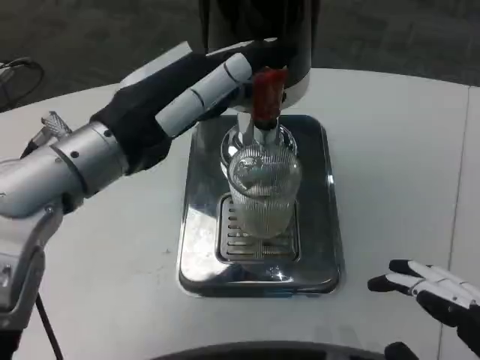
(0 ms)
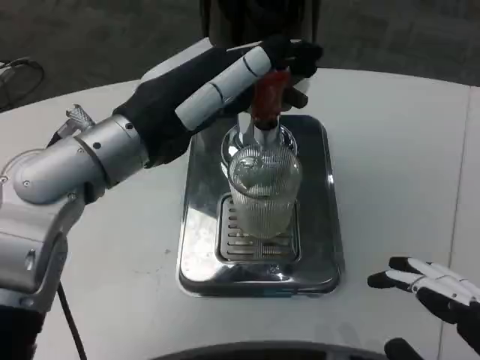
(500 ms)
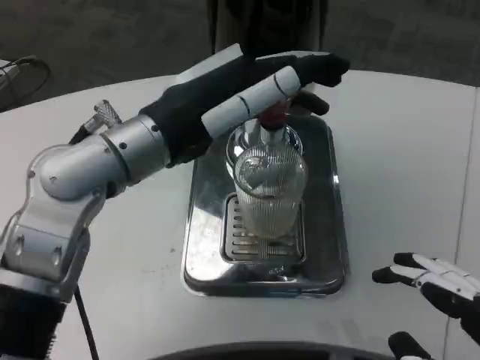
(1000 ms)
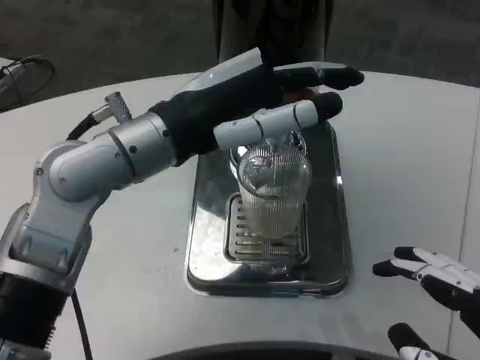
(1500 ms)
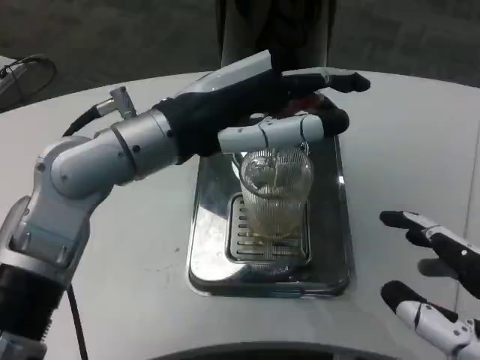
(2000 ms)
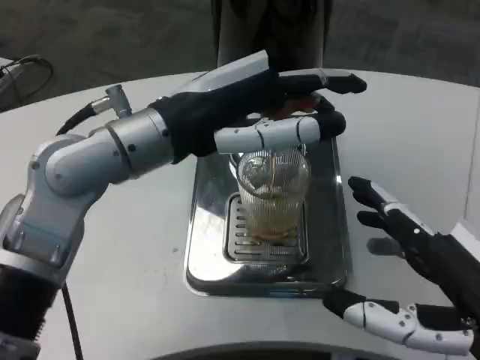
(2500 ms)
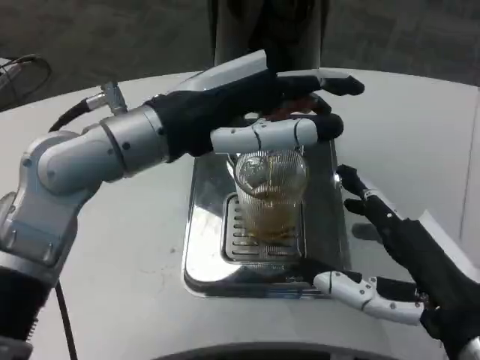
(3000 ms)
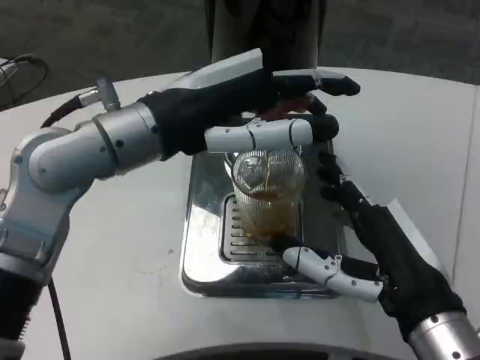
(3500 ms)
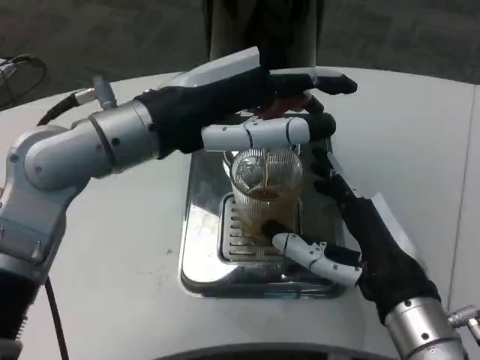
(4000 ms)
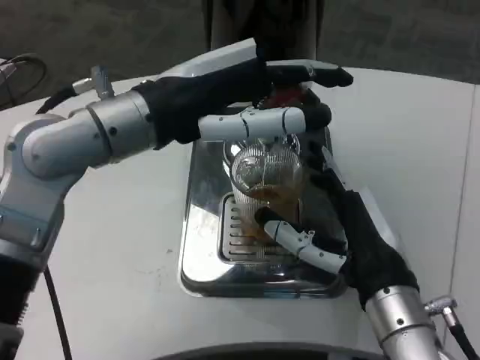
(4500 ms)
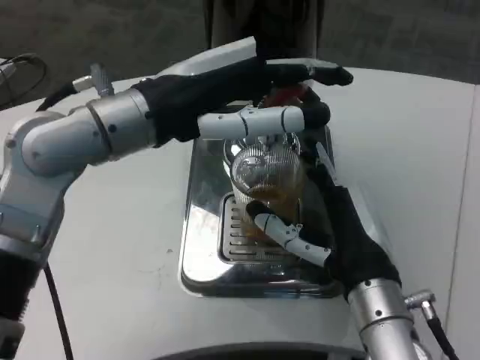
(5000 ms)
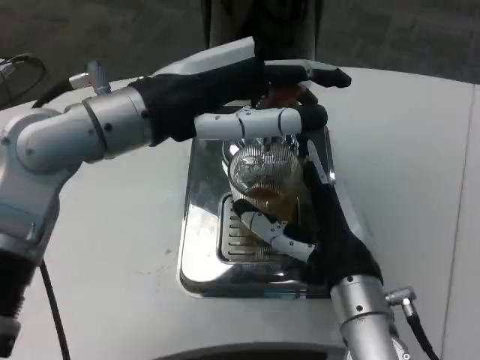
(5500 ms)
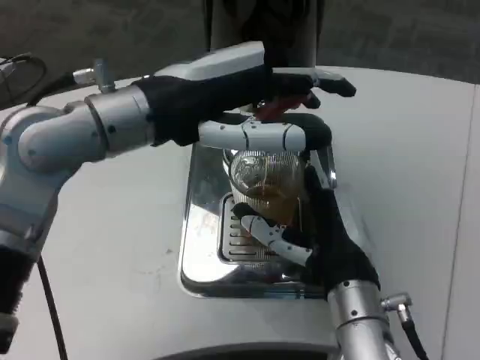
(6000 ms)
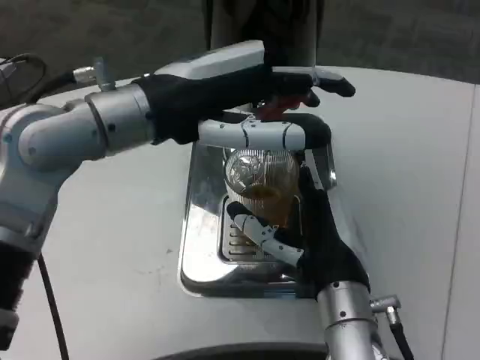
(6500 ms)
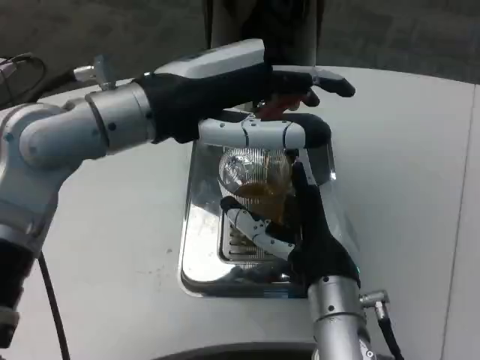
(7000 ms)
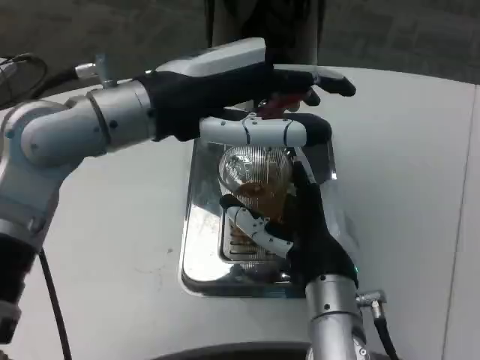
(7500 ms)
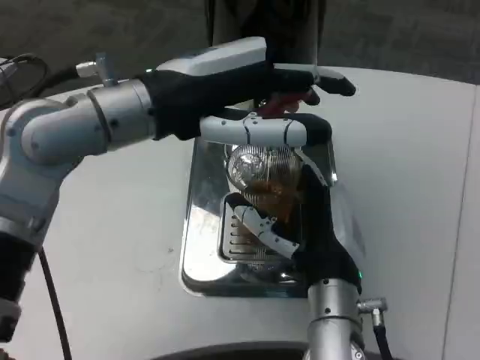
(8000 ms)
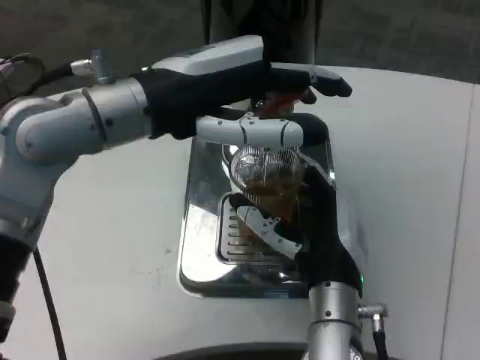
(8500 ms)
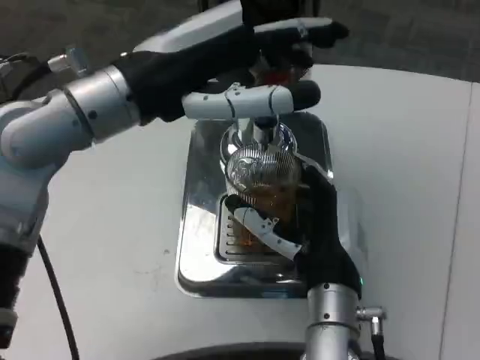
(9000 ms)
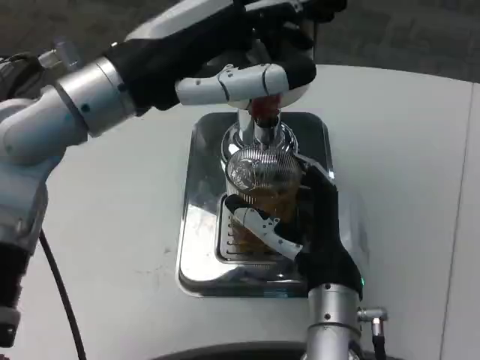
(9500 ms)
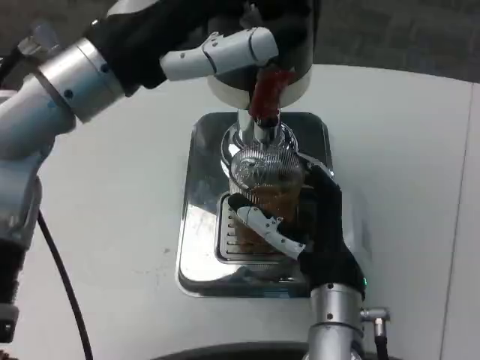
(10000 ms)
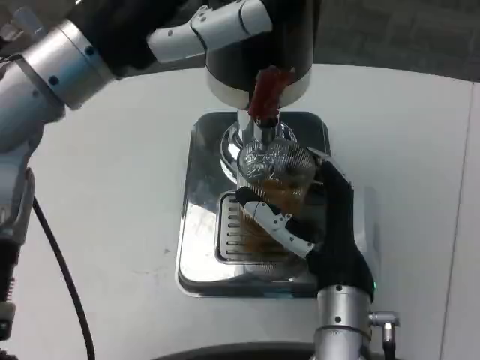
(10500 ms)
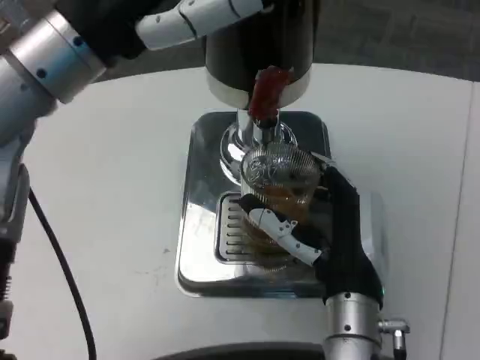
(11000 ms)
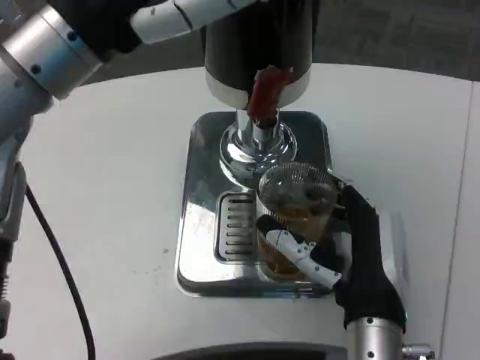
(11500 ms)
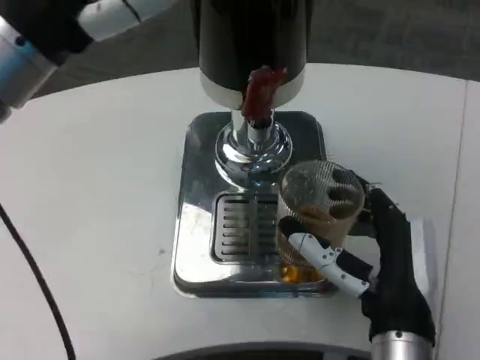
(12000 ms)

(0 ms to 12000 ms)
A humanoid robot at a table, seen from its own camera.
Task of the whole recording: Grasp the cup under the faucet to collect the drink, then remove the cup.
2000 ms - 4000 ms: The right hand shifts roughly 15 cm forward and to the left.
4000 ms - 6000 ms: The right hand moves to the left, about 5 cm.
6000 ms - 8000 ms: The hands stay close to where they were, moving slightly.
10000 ms - 12000 ms: The right hand heads backward, covering about 5 cm.

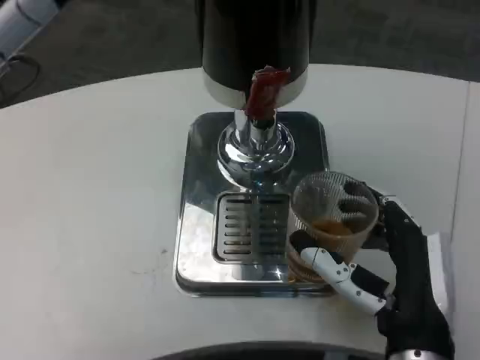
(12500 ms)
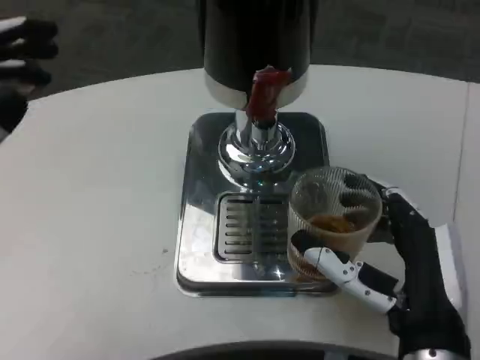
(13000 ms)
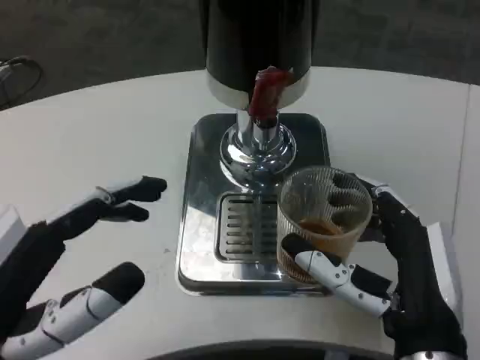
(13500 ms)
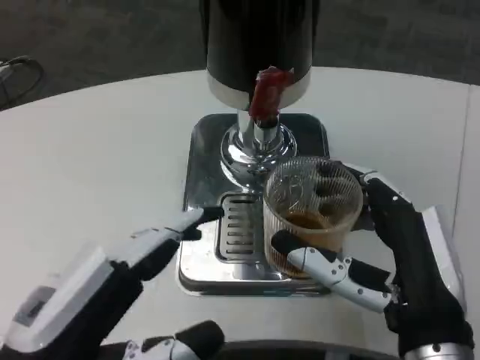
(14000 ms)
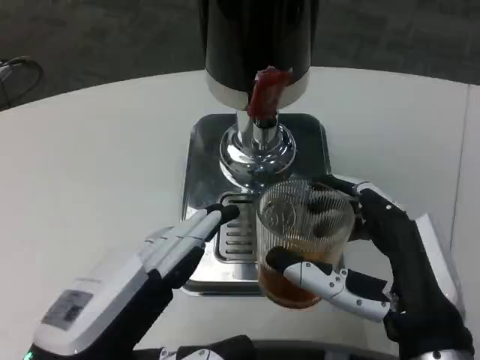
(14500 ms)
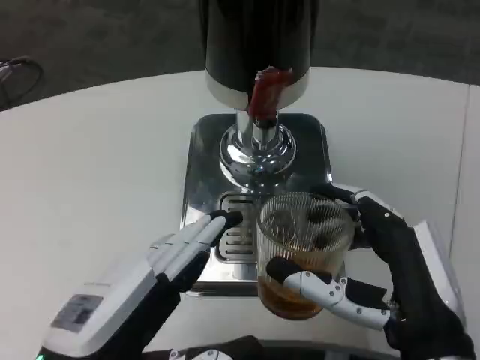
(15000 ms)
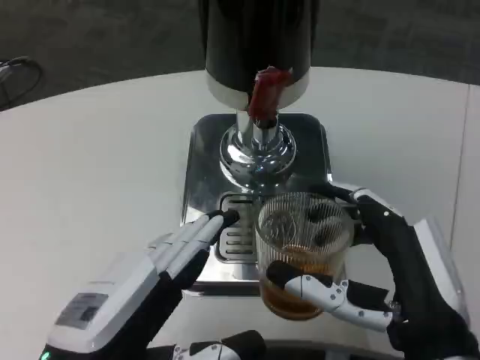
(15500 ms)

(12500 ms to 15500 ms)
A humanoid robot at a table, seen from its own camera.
Task of the whole recording: Grasp the cup under the faucet to collect the drink, then remove the cup.
12500 ms - 14000 ms: The left hand moves downward and backward, about 15 cm.

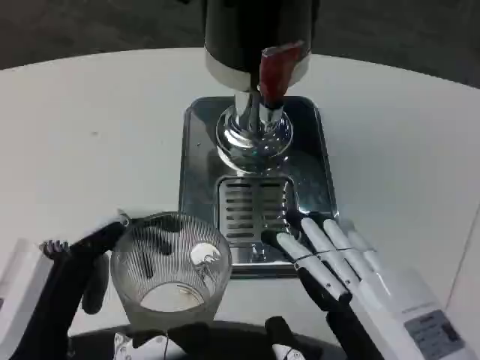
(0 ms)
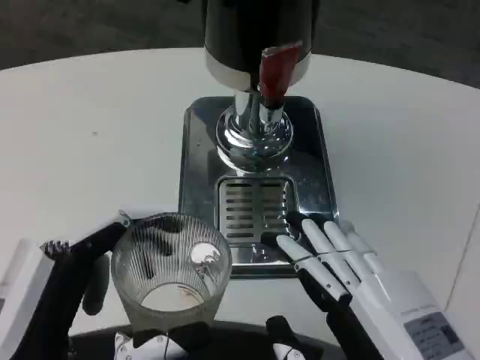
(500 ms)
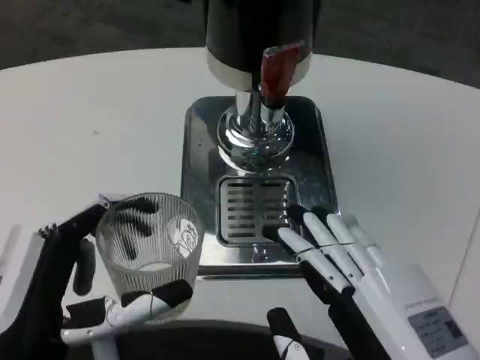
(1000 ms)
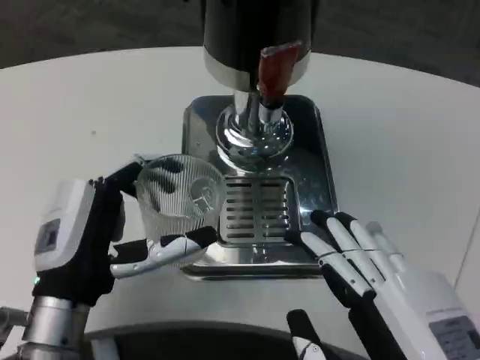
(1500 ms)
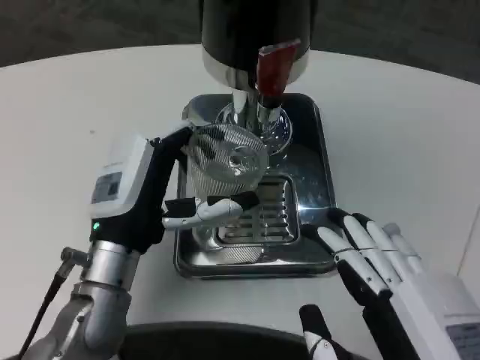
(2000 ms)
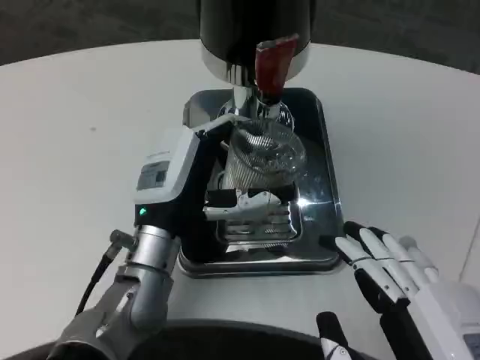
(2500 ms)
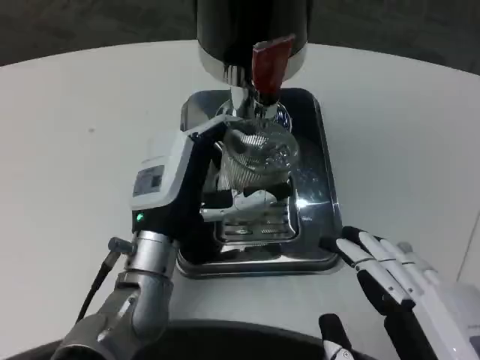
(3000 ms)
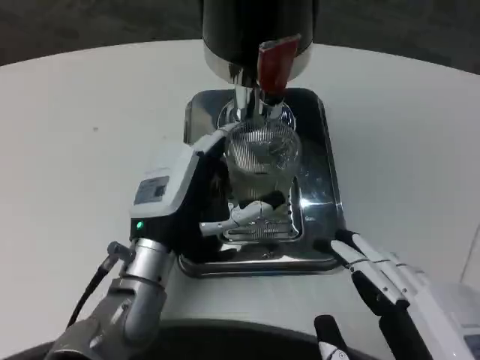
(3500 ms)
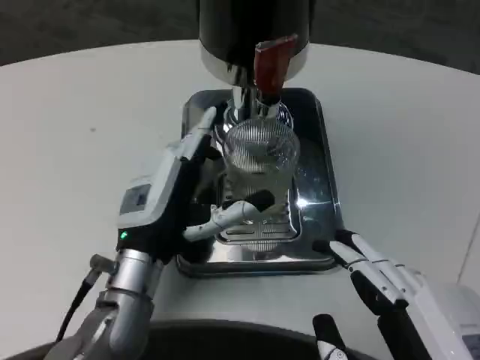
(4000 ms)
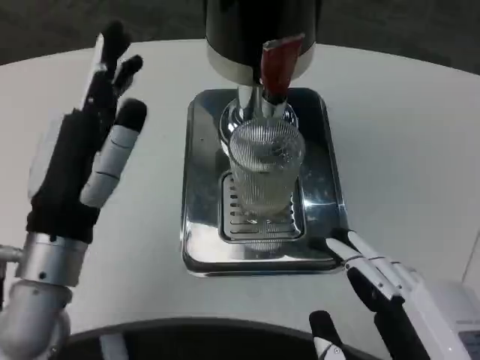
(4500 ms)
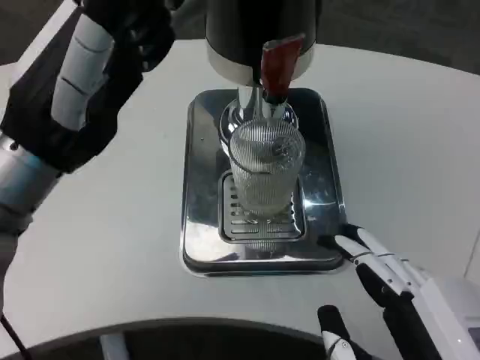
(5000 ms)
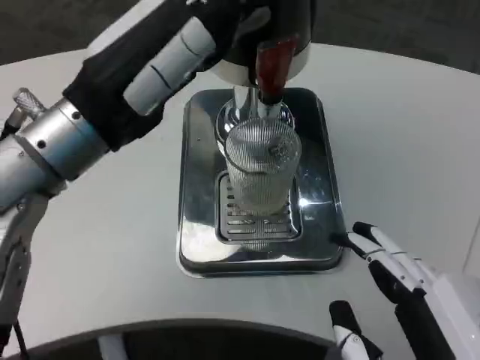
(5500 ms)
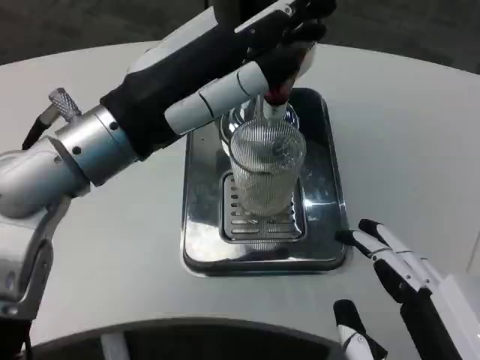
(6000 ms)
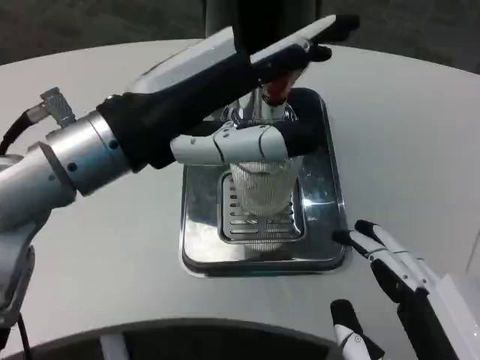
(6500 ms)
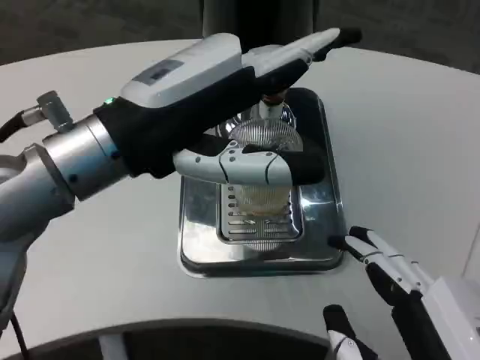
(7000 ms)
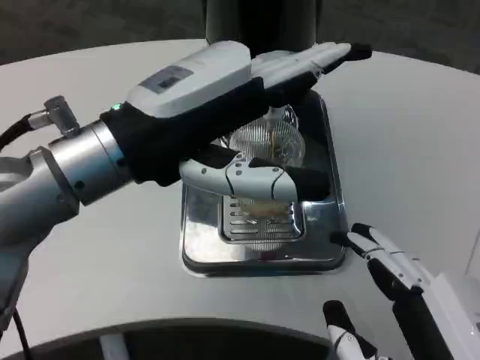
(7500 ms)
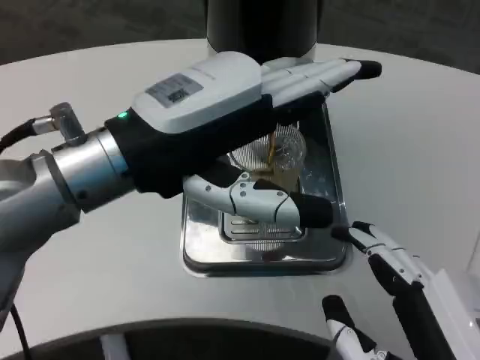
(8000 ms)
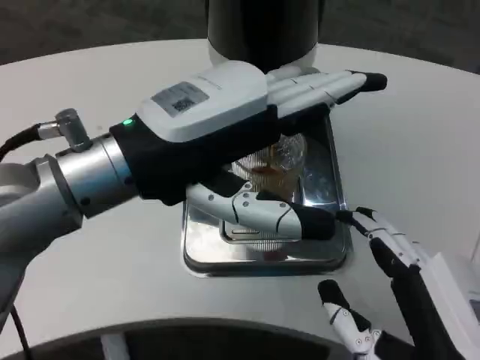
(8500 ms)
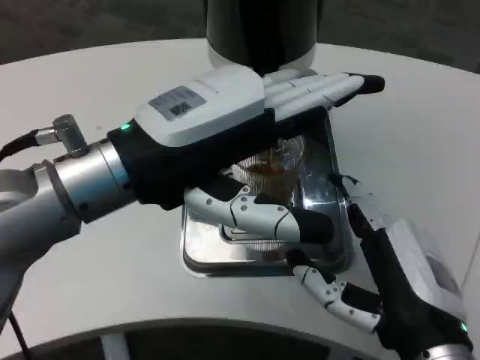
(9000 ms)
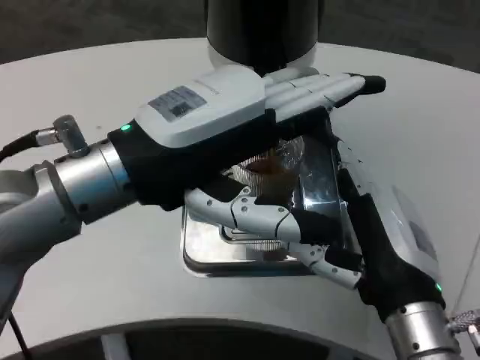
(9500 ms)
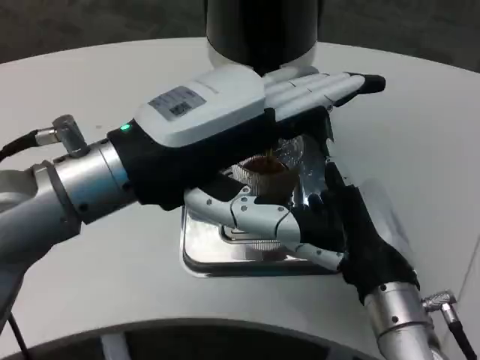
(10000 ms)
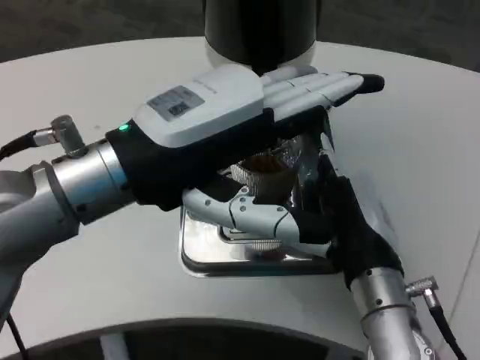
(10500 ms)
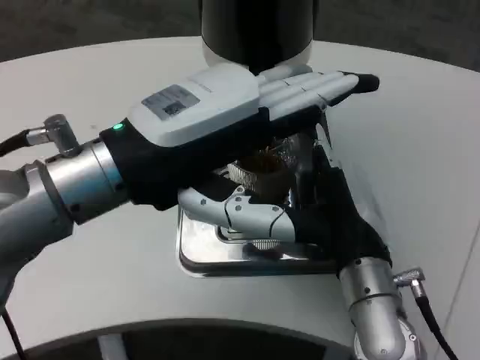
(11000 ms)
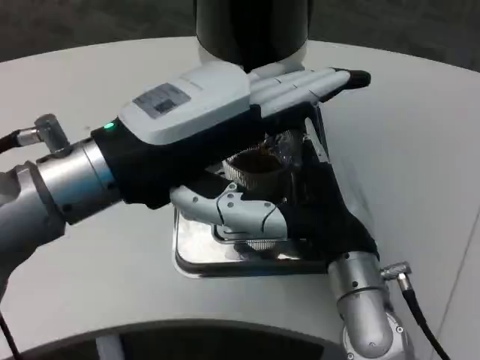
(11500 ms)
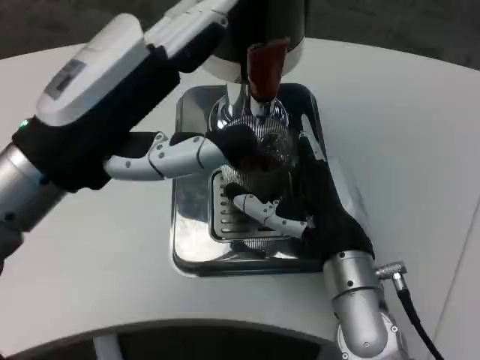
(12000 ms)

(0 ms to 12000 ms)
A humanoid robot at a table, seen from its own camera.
Task of the whole recording: Grasp the cup under the faucet to collect the drink, then remove the cup.
0 ms - 2000 ms: The left hand moves forward, roughly 15 cm.
4000 ms - 6000 ms: The left hand travels upward by approximately 20 cm.
8000 ms - 10000 ms: The right hand goes roughly 15 cm forward.
10000 ms - 12000 ms: The right hand moves approximately 5 cm.
